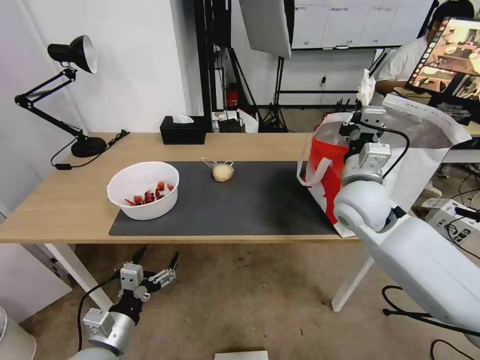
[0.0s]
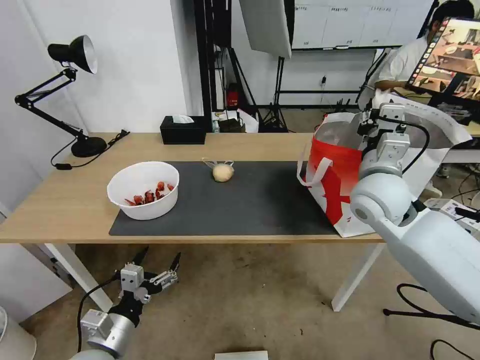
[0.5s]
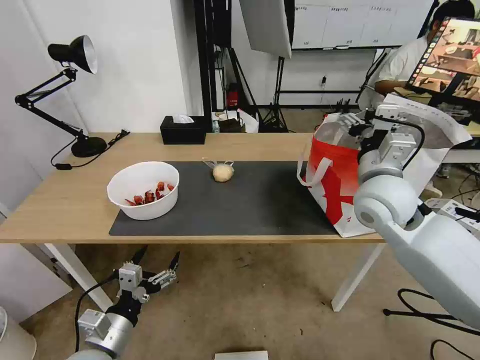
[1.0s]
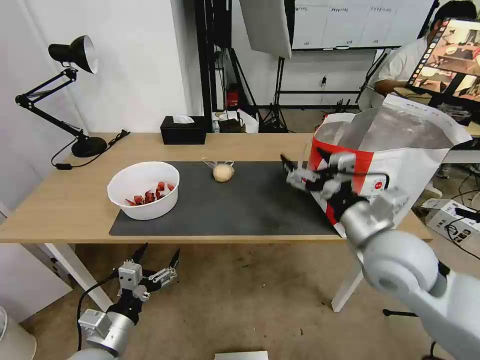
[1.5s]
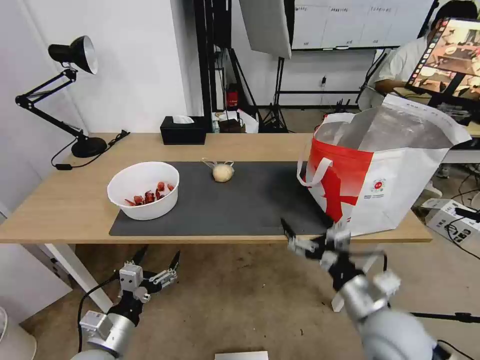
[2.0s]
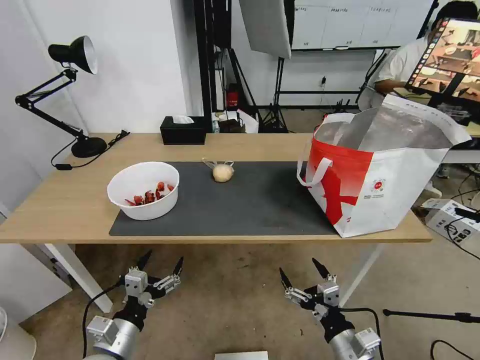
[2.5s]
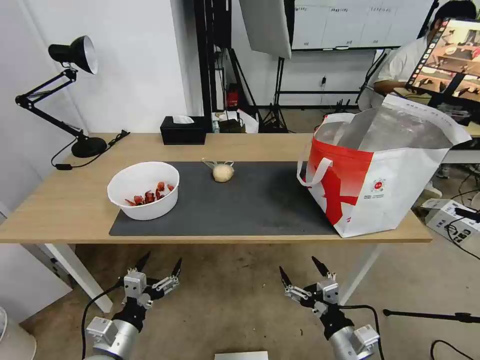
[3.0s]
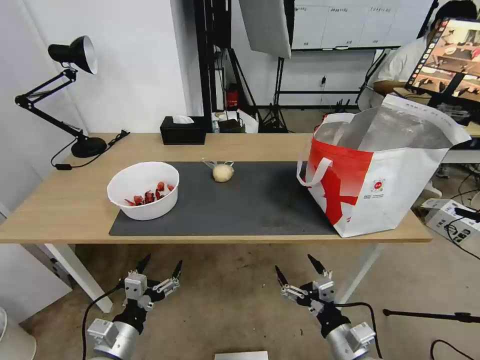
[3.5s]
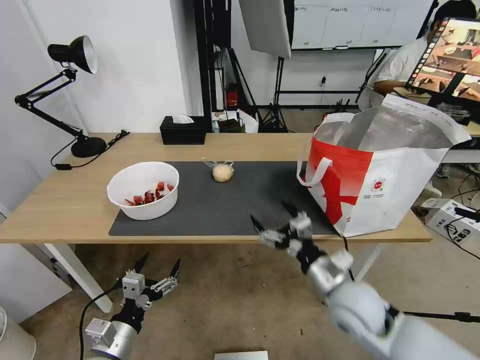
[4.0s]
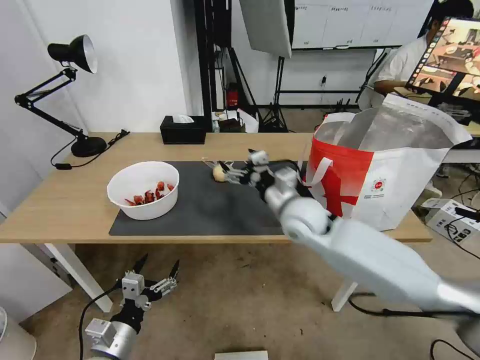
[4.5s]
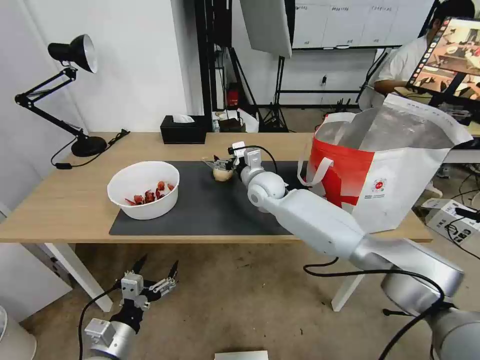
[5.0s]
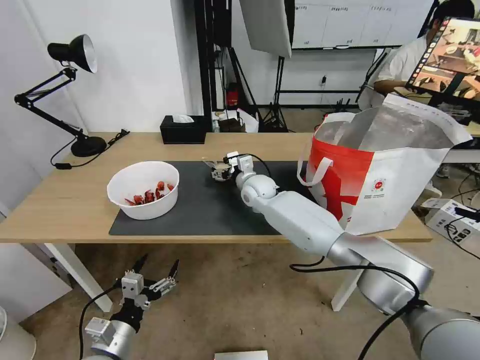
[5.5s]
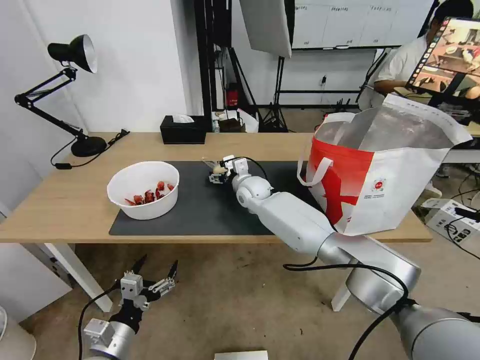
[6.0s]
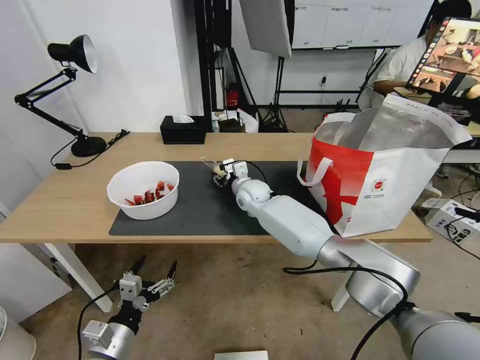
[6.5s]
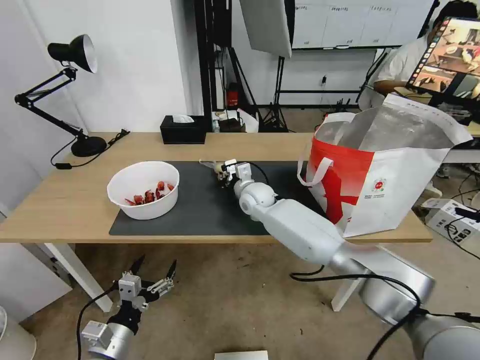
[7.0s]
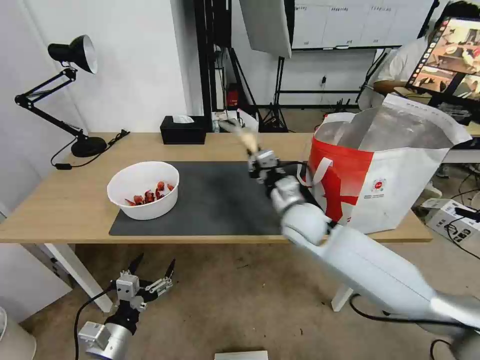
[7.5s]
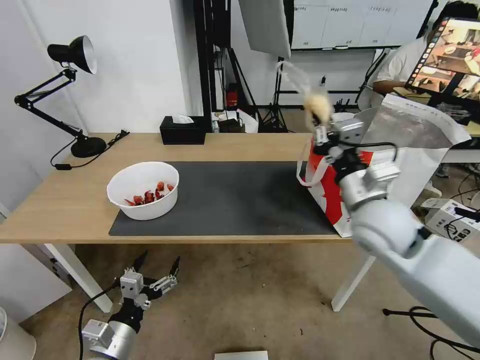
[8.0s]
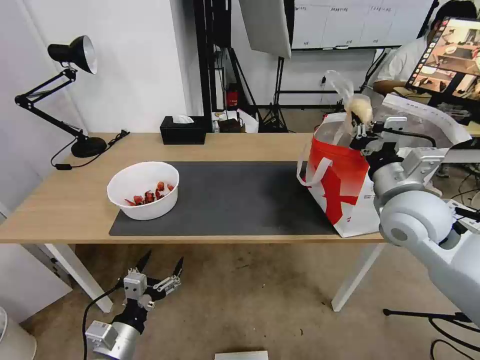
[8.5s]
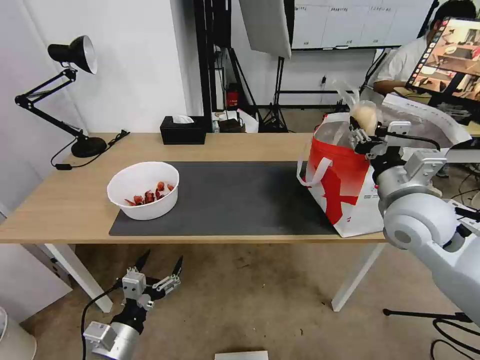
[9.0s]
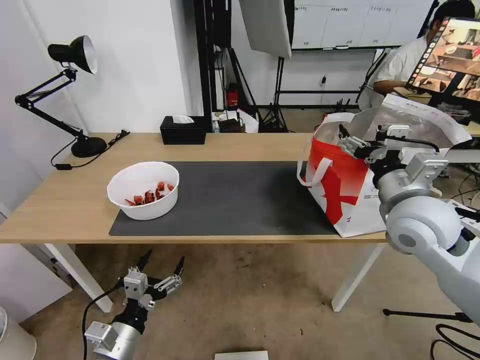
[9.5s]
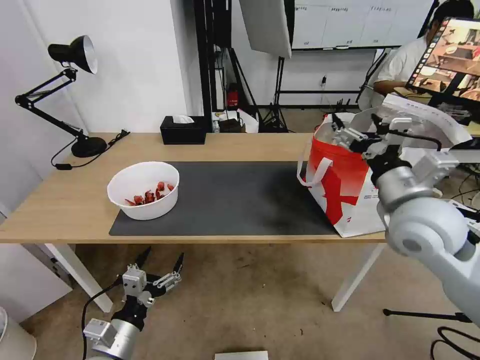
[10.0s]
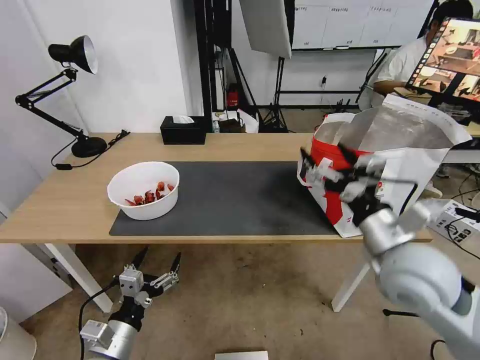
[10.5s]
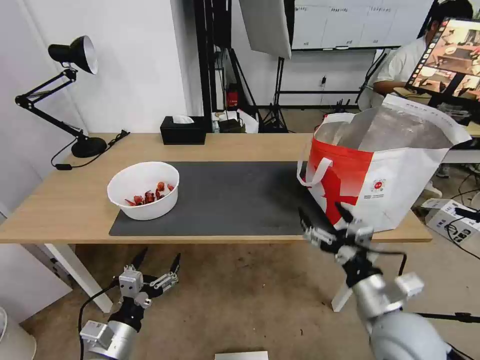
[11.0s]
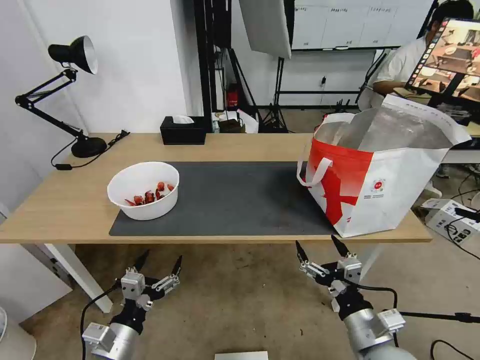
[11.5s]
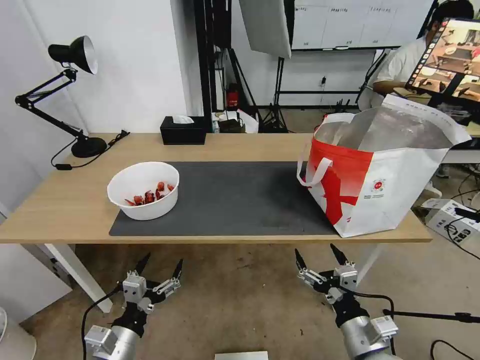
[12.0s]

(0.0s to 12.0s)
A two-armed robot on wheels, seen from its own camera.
Task of the whole recording: Pick up the trash from the table and place it into the takeout bag.
0.0s - 2.0s: The right gripper is displaced backward and downward by some 25 cm, and opens up.
2.0s - 4.0s: The right gripper moves forward, about 5 cm.
4.0s - 6.0s: The right gripper moves forward and to the left, approximately 35 cm.
6.0s - 8.0s: The right gripper travels backward, to the right and upward by about 35 cm, and closes its fingers.
8.0s - 10.0s: The right gripper changes place by approximately 5 cm, and opens up.
10.0s - 12.0s: The right gripper moves downward and backward, some 30 cm.

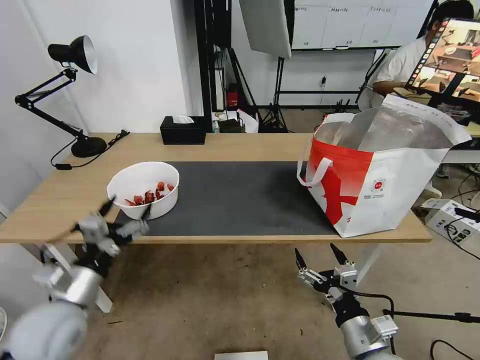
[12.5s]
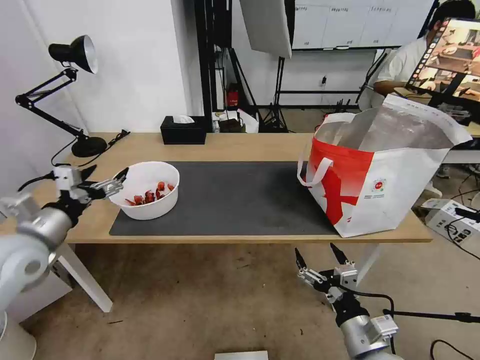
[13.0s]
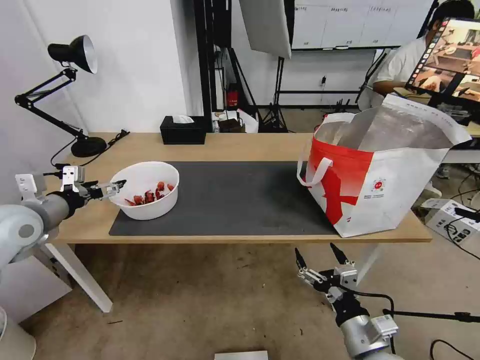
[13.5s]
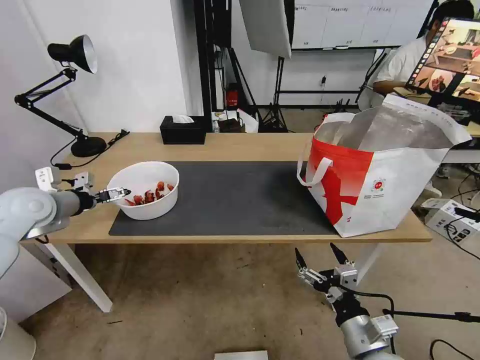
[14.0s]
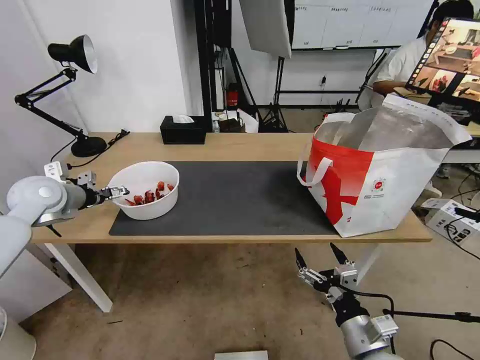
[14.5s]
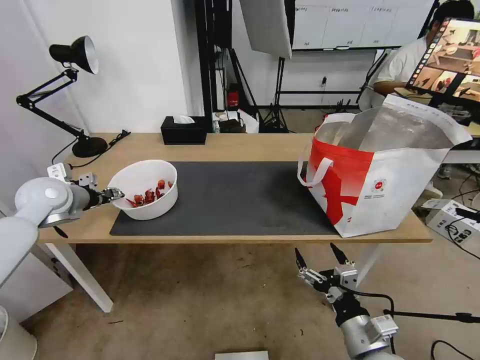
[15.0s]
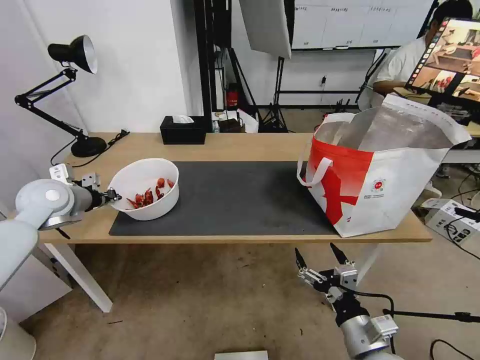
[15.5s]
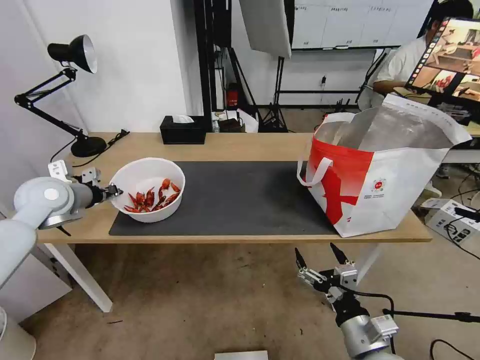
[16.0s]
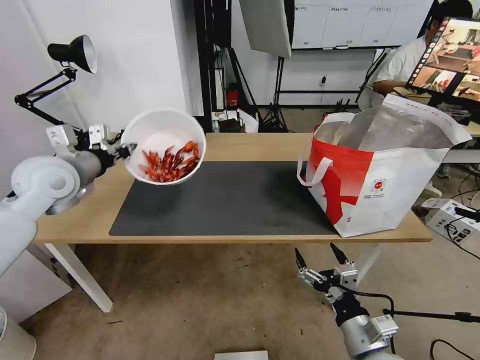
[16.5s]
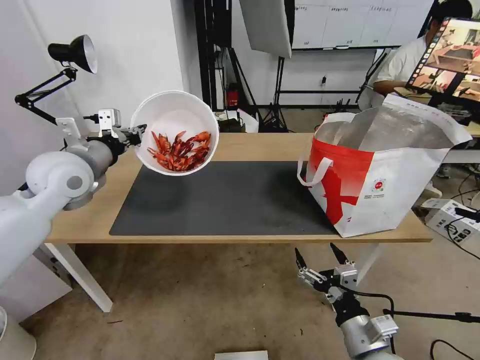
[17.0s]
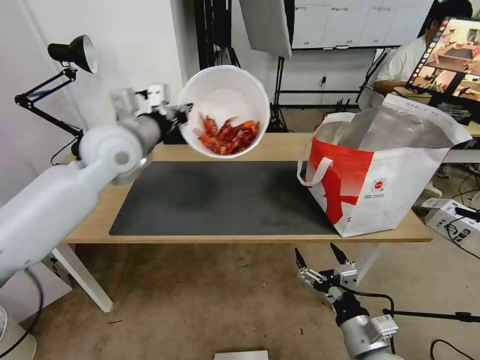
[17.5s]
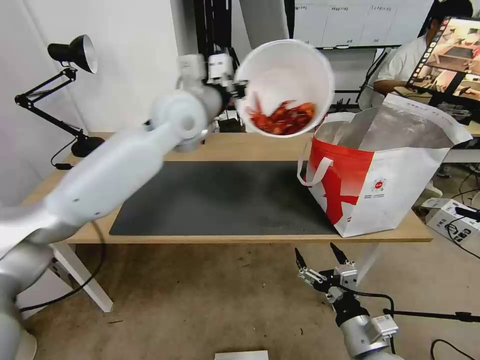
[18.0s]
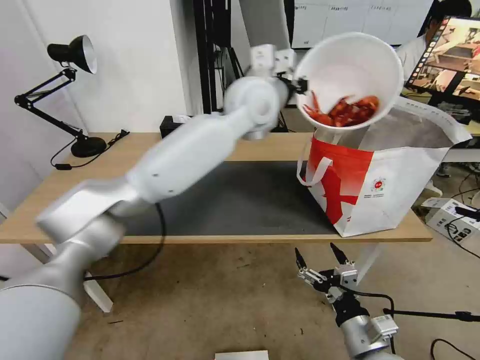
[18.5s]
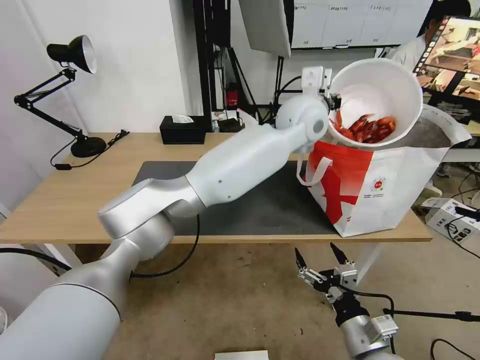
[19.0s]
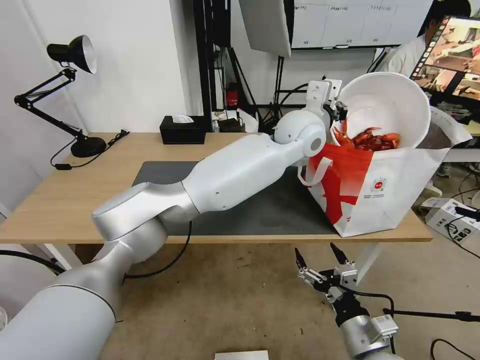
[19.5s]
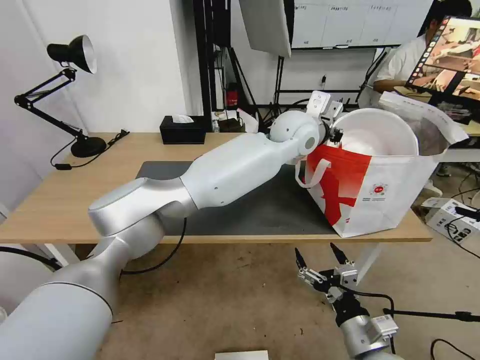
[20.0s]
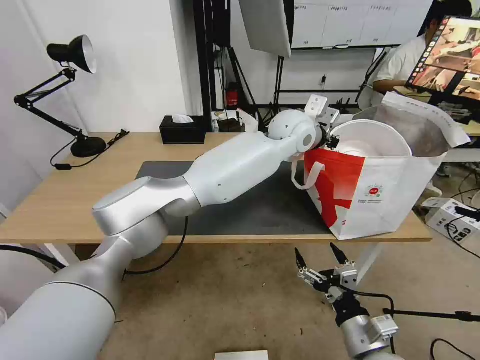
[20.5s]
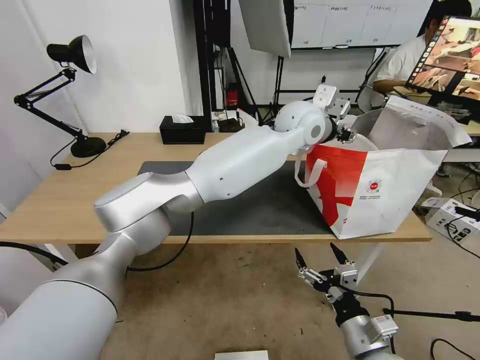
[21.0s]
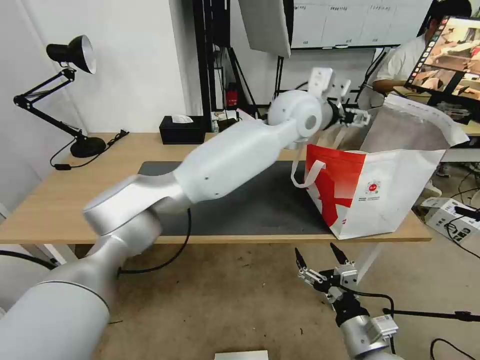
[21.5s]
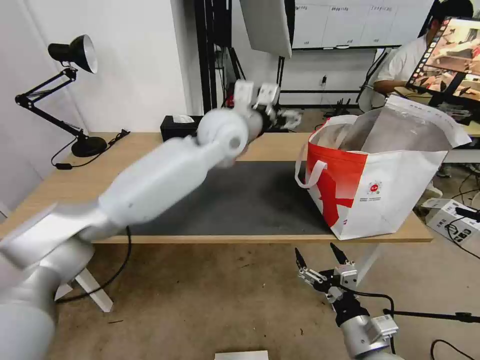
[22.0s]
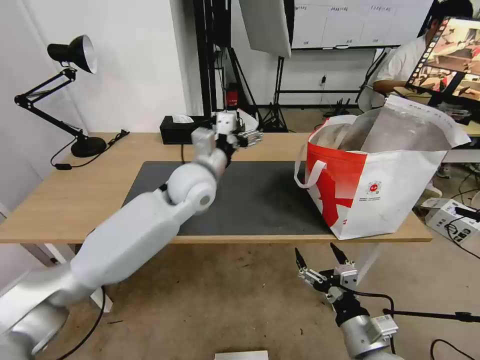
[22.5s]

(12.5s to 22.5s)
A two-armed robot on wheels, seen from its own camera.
Task of the whole recording: Pick up the trash from the table and place it into the takeout bag.
12.5s - 14.5s: The left gripper heads forward, to the left and upward, covering some 25 cm.
14.5s - 16.5s: The left gripper goes roughly 10 cm to the right and upward, and closes its fingers.
16.5s - 18.5s: The left gripper is displaced to the right by approximately 40 cm.
18.5s - 20.5s: The left gripper heads to the right and downward, covering roughly 10 cm.
20.5s - 22.5s: The left gripper shifts about 25 cm to the left and backward, and opens.

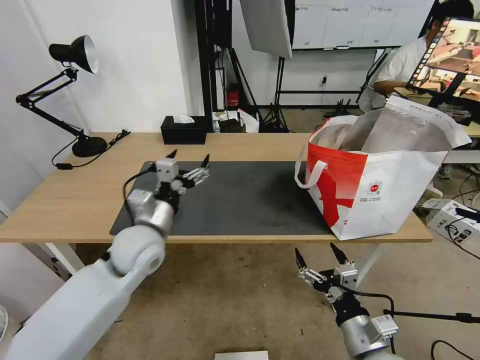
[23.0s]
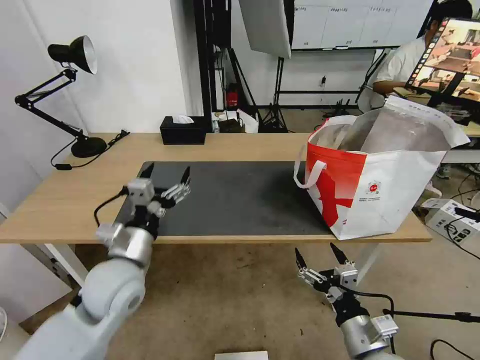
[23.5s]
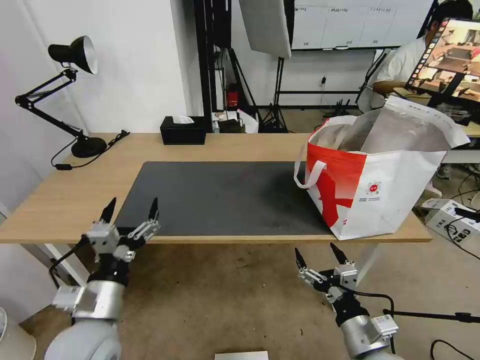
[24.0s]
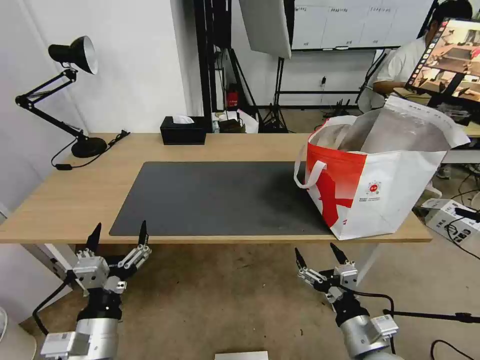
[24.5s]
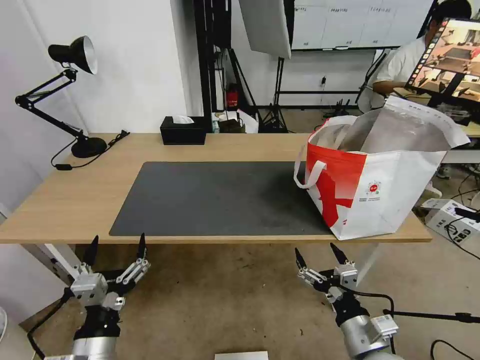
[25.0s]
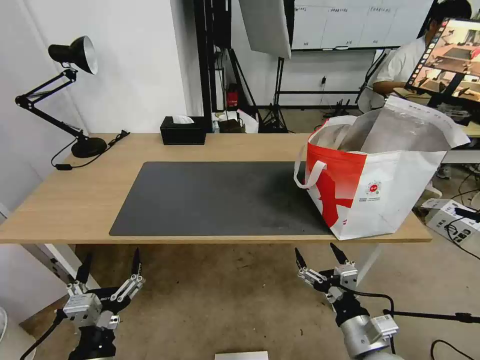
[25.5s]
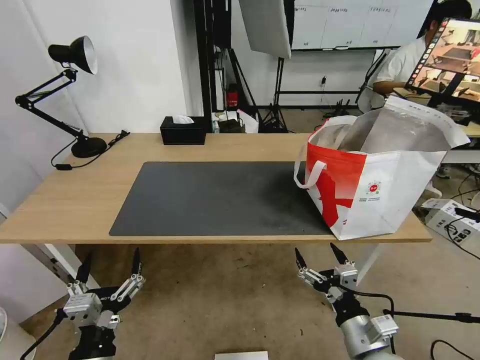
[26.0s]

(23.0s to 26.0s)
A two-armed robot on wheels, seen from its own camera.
Task of the whole recording: Pick up the trash from the table and place it into the takeout bag.
23.0s - 24.5s: The left gripper heads backward, covering about 20 cm.
24.5s - 26.0s: The left gripper shifts by approximately 5 cm.
